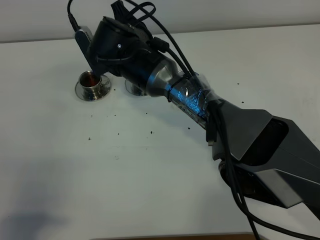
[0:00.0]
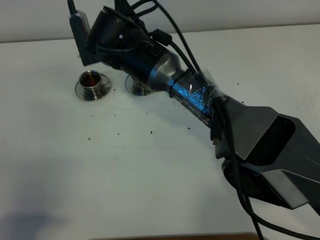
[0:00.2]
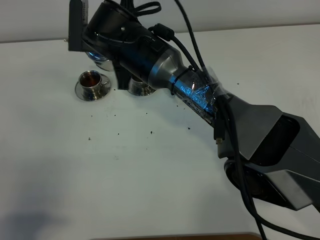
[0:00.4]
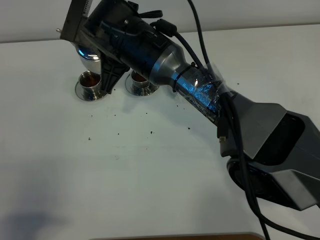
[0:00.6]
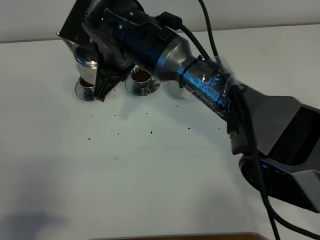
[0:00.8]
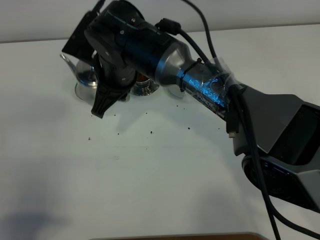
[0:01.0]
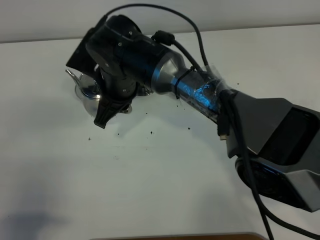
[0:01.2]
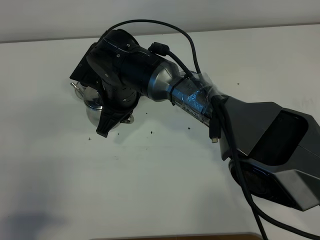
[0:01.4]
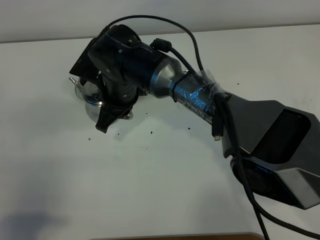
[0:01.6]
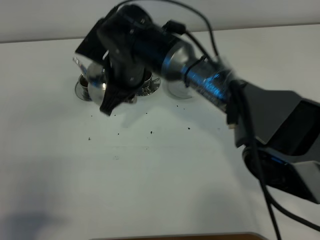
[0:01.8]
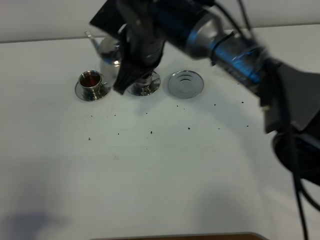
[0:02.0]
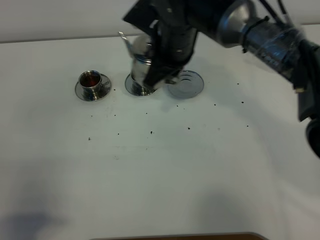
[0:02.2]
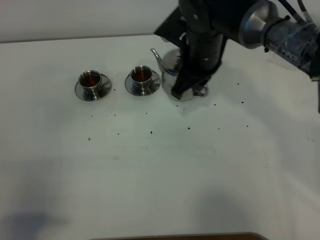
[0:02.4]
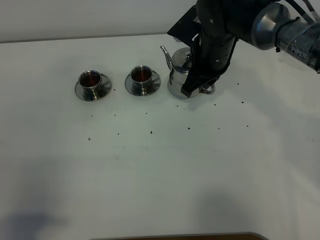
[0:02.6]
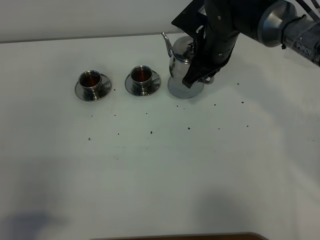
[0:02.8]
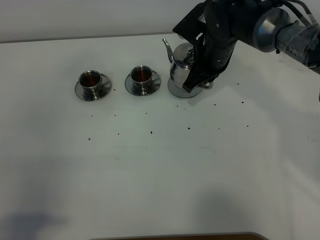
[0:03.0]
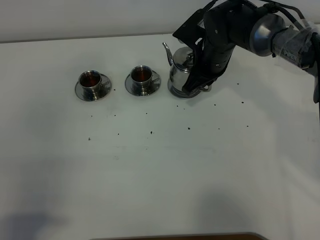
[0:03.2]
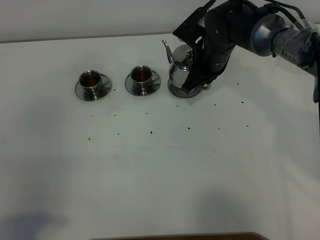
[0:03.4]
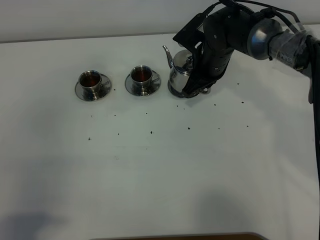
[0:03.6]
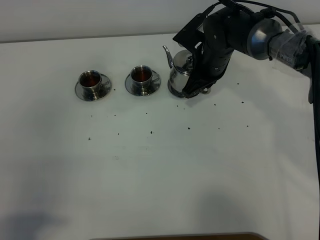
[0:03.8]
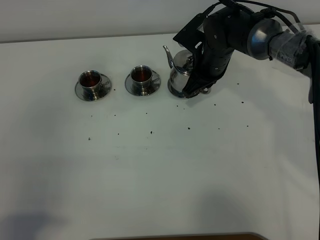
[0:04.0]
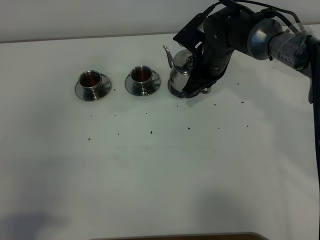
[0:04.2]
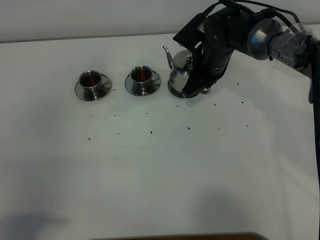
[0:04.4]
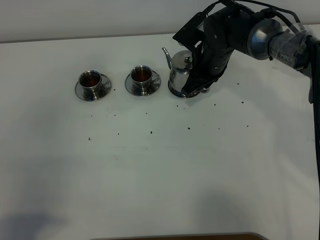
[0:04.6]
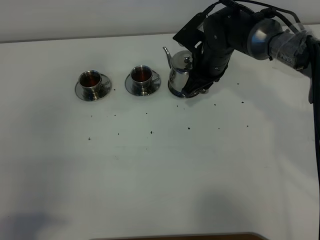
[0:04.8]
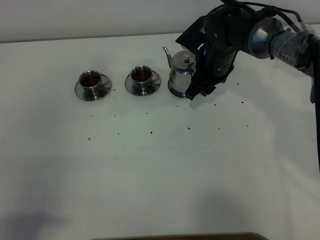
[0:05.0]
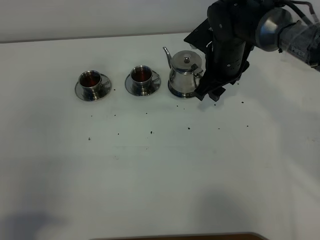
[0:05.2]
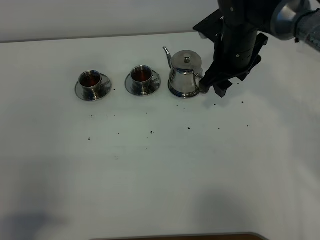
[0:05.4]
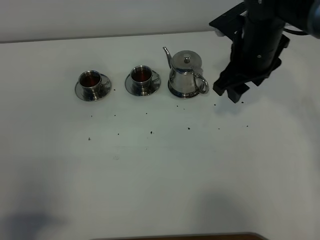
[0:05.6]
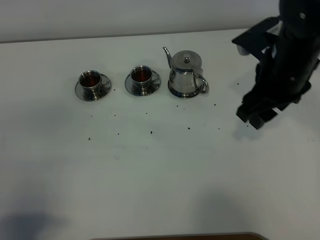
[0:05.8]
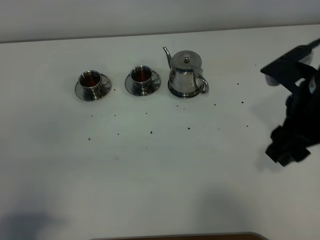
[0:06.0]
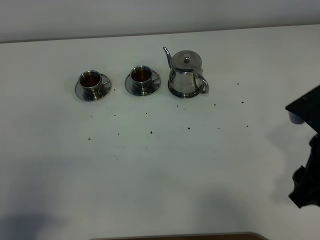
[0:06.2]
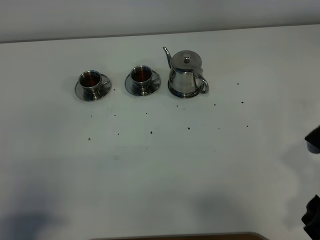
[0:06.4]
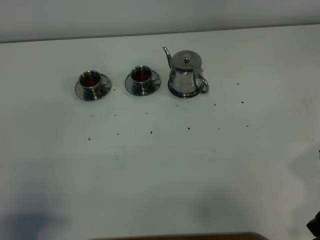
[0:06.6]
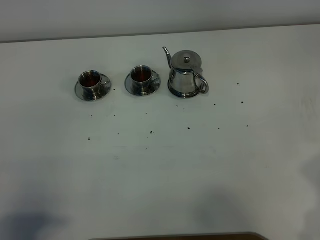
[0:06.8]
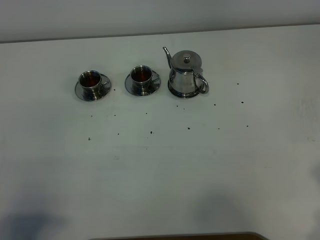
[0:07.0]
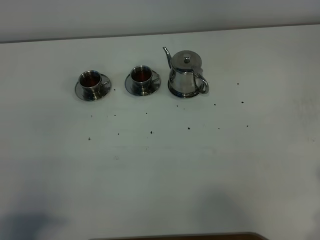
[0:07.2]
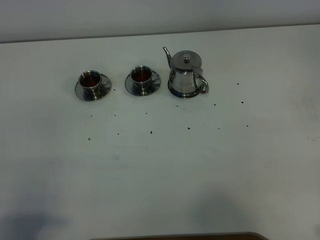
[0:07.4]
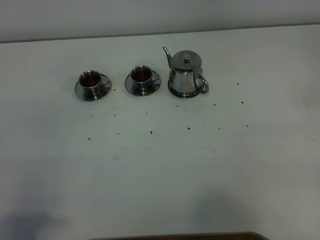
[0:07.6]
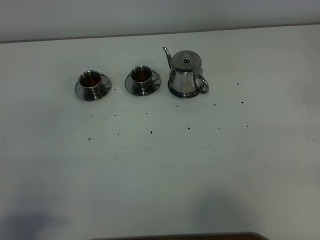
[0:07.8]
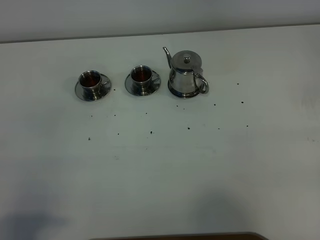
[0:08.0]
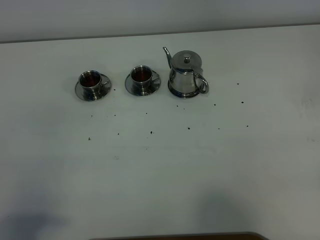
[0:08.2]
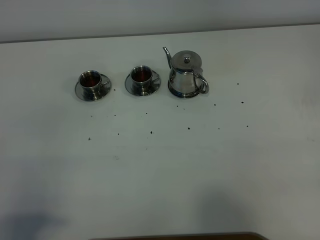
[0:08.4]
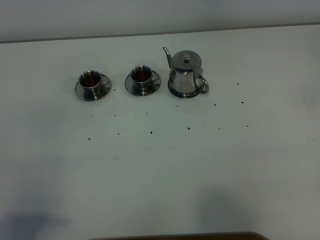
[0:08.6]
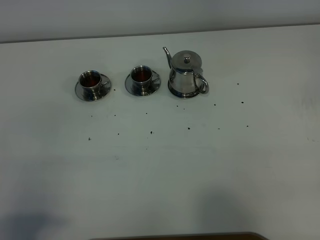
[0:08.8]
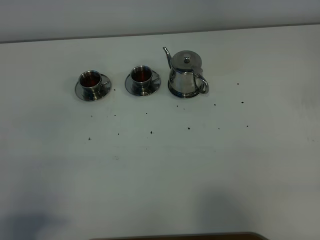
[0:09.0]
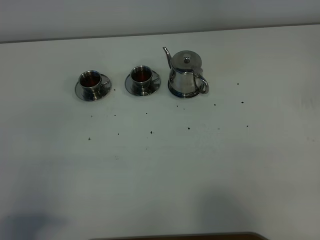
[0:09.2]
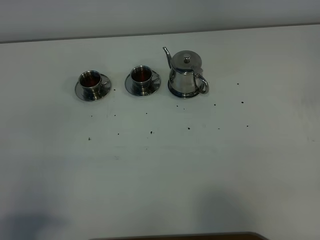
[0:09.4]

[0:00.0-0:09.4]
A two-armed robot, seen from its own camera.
Task of the whole recording: grasp the stainless steel teapot and pour the tea into the two stainless steel teacups one by one, put the stainless steel teapot back in its original place.
0:00.0 to 0:01.6: The right gripper moves about 5 cm.
0:01.6 to 0:03.2: The right gripper shifts about 20 cm to the right and forward.
0:03.2 to 0:04.8: The right gripper opens up.
0:04.8 to 0:06.2: The right gripper moves backward and to the right, about 30 cm, and opens its fingers.
0:06.2 to 0:07.8: The right gripper travels backward and to the right by approximately 15 cm, and closes up.

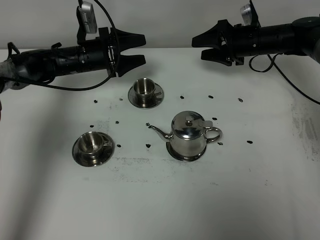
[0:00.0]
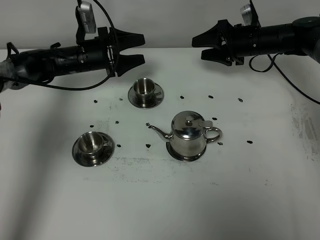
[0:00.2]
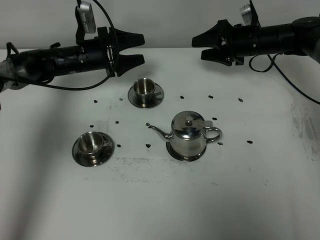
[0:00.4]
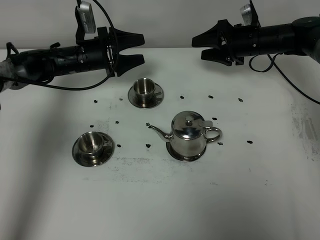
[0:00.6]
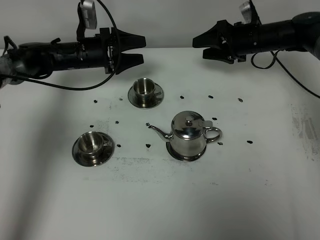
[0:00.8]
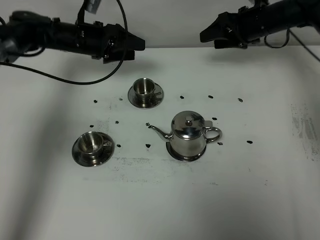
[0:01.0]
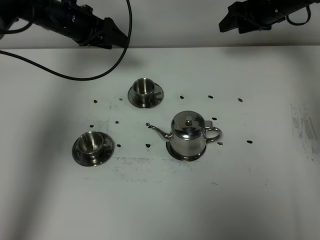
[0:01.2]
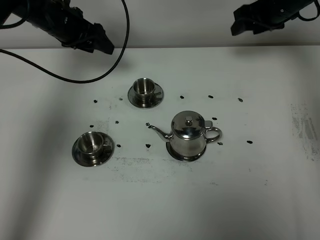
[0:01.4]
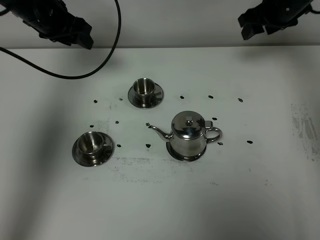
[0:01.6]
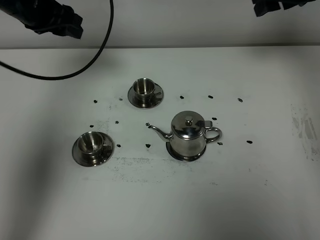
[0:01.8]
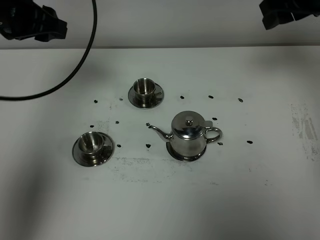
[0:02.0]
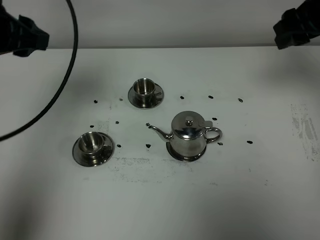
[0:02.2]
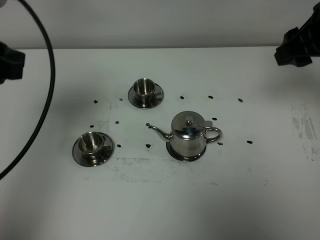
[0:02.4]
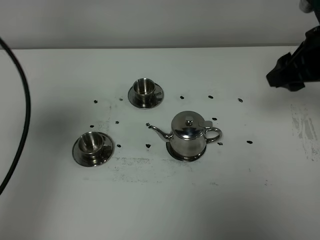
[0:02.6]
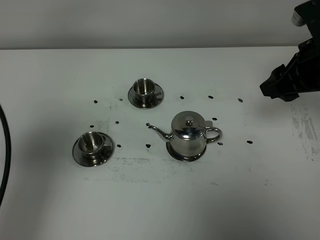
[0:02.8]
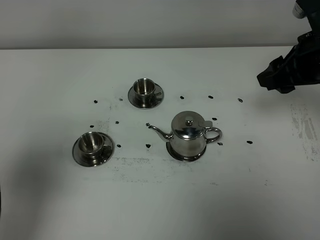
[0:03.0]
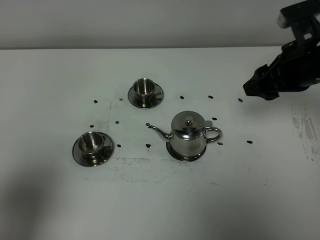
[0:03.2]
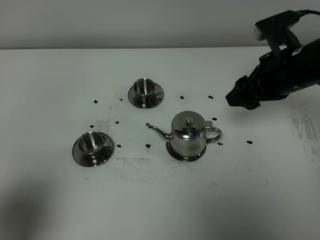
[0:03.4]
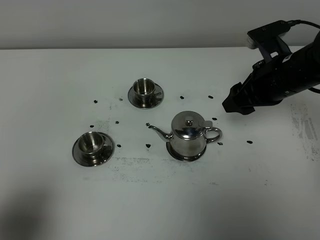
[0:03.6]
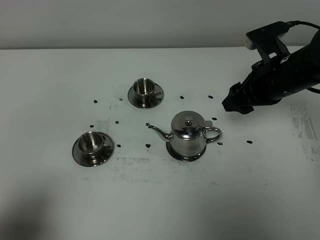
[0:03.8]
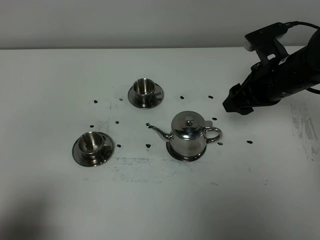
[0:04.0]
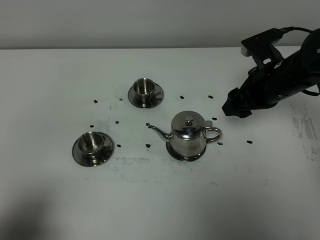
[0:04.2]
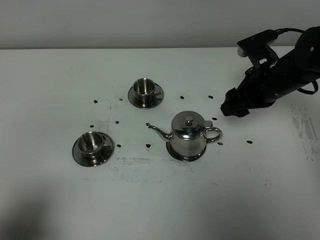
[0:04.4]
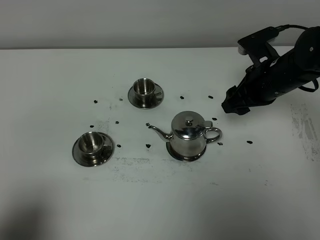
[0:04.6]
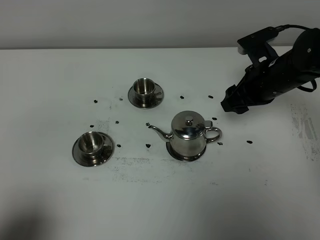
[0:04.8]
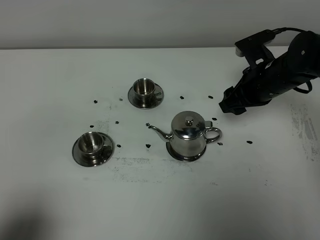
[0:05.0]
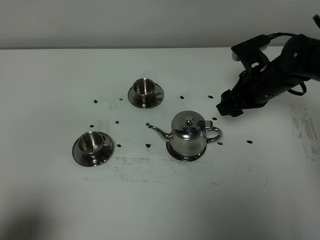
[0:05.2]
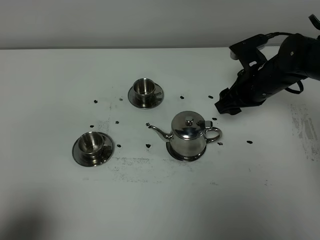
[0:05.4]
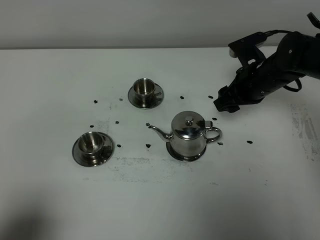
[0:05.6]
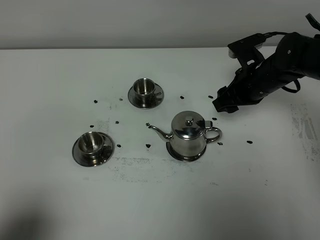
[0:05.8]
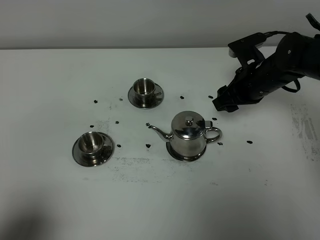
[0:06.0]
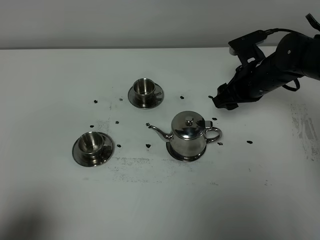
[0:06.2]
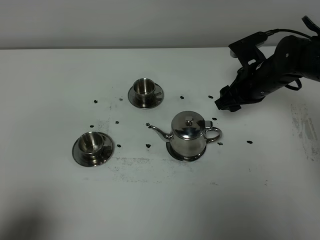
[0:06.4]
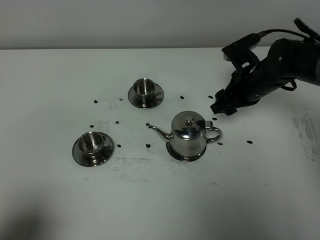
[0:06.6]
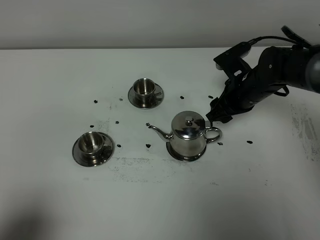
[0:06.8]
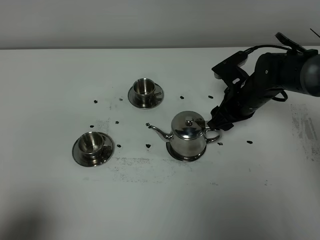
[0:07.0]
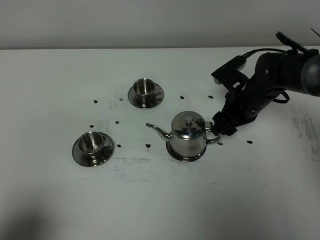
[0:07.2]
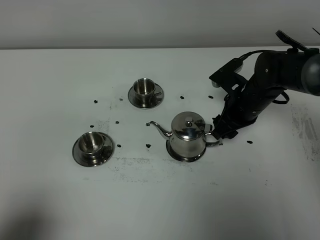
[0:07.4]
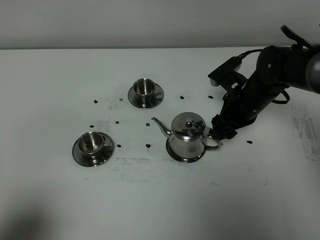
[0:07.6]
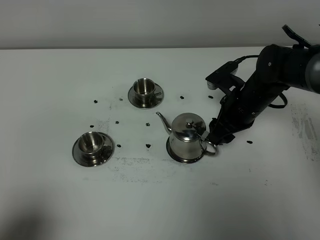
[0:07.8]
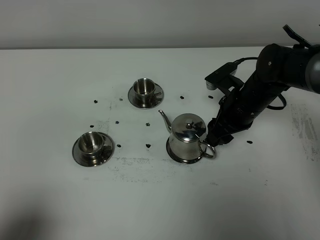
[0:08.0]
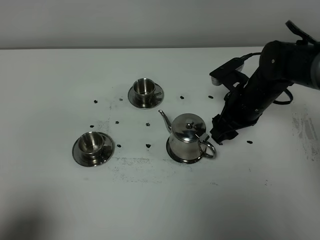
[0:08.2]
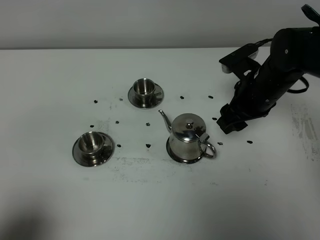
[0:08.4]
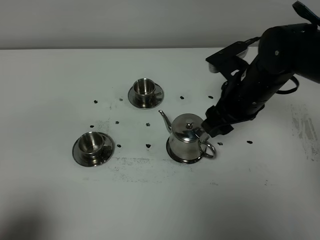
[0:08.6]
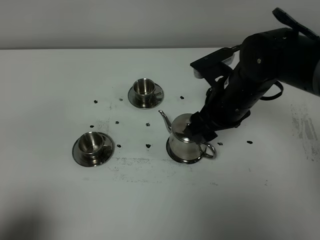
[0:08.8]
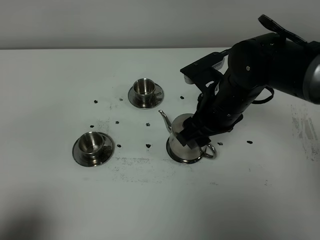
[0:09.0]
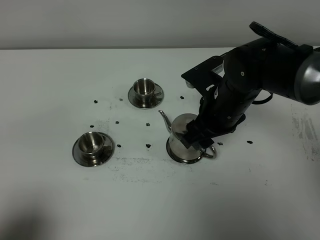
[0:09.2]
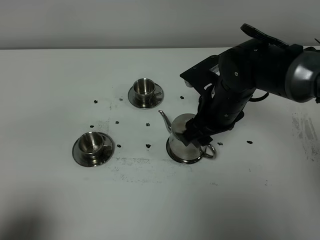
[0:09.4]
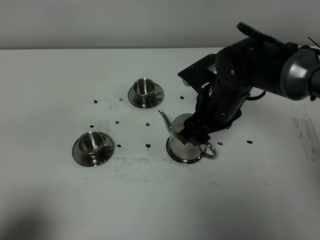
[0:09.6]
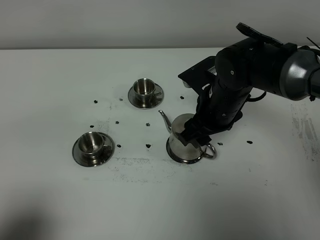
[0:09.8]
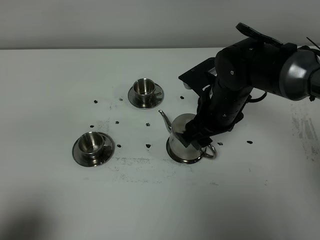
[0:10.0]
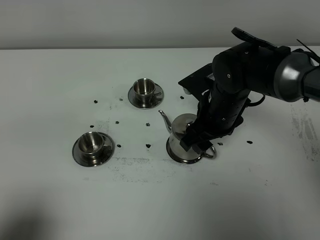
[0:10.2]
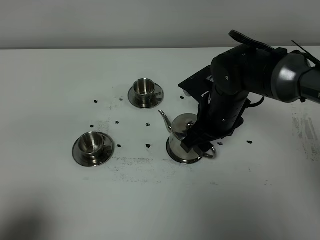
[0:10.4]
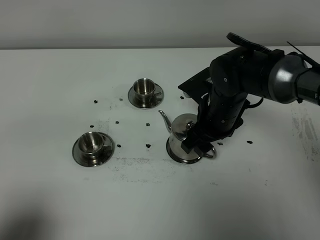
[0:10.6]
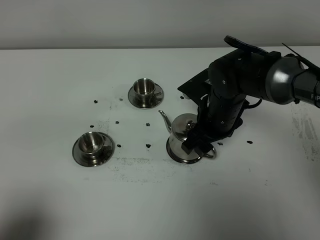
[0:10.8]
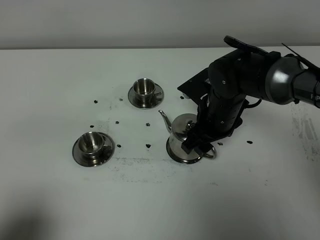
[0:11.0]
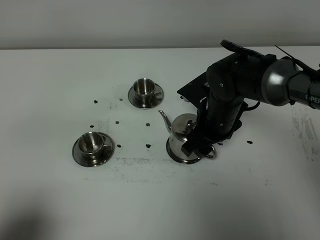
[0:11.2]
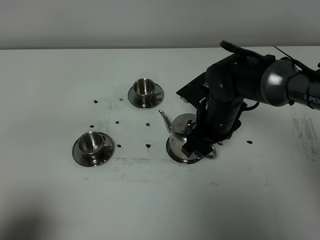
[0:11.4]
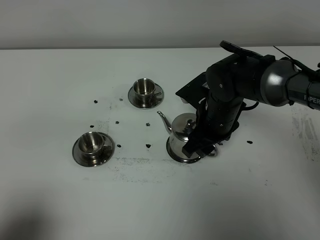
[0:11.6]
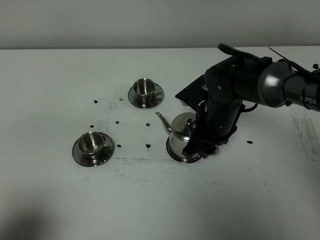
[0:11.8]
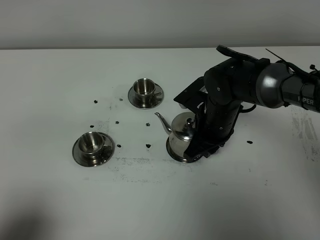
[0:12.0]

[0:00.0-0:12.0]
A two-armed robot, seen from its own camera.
Task of the whole recording: grasp the stainless steel teapot and pour the tea into the two stainless steel teacups one by one, put the stainless steel teapot back in its original place.
0:00.0 to 0:01.6: Both grippers travel together upward, approximately 15 cm. The left gripper closes.
0:01.6 to 0:03.0: The right gripper moves backward, about 20 cm; the left gripper moves backward, approximately 40 cm.
0:03.0 to 0:04.4: The left gripper moves downward and backward, about 10 cm. The right gripper heads downward, covering about 10 cm.
0:04.4 to 0:06.0: The right gripper changes place by roughly 5 cm.
0:06.0 to 0:07.6: There are only small adjustments of the grippers.
0:07.6 to 0:09.0: The right gripper travels upward, backward and to the left by some 10 cm.
0:09.0 to 0:10.4: The grippers stay close to where they were, moving slightly.
0:10.4 to 0:12.0: The right gripper closes.

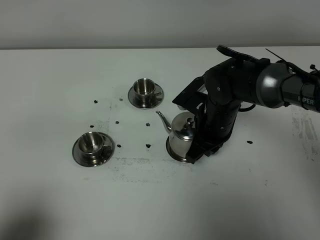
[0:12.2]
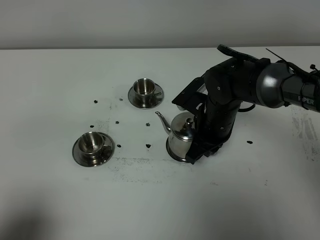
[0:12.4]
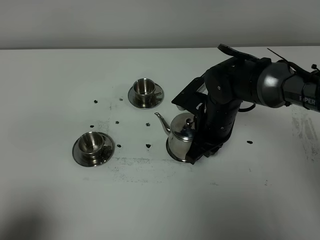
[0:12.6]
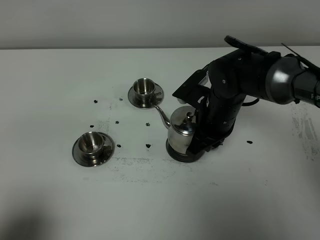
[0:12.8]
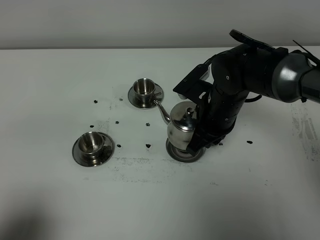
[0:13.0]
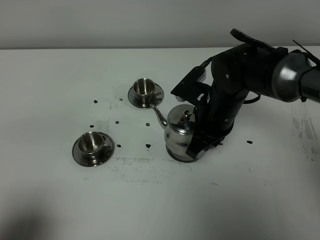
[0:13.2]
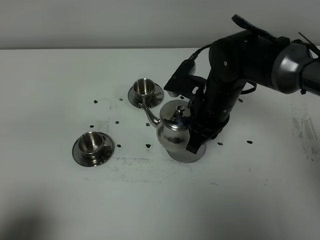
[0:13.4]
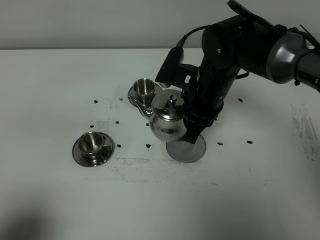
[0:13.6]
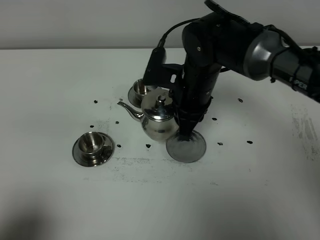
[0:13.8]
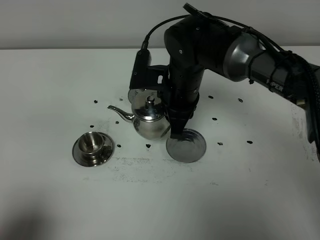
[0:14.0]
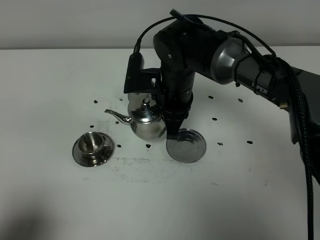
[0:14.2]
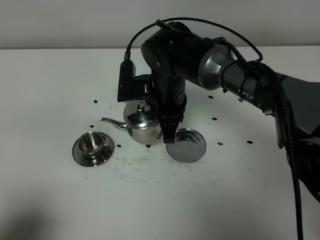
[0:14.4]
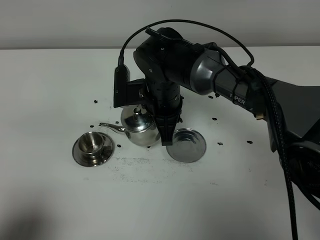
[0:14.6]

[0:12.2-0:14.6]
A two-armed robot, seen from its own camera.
Task of the whole recording: grasp the stainless steel teapot and pour the tea into the two stainless steel teacups one by one, put the stainless steel teapot back in its original place.
0:12.2 to 0:13.4: The right gripper moves upward, roughly 5 cm.
0:13.4 to 0:14.6: The right gripper shifts roughly 10 cm to the left.
